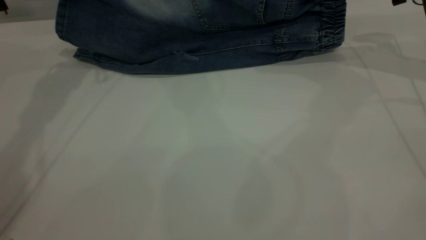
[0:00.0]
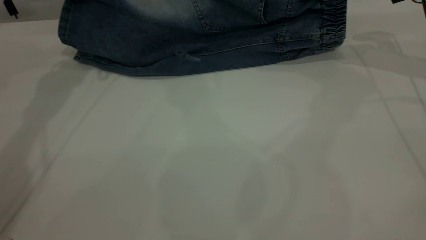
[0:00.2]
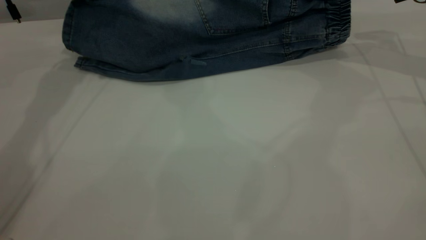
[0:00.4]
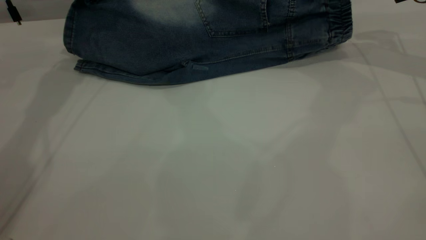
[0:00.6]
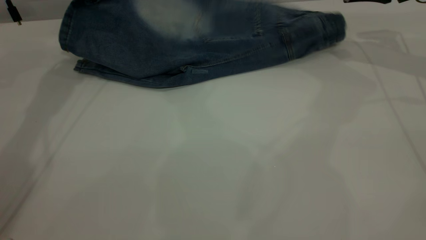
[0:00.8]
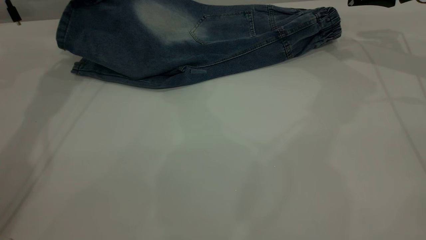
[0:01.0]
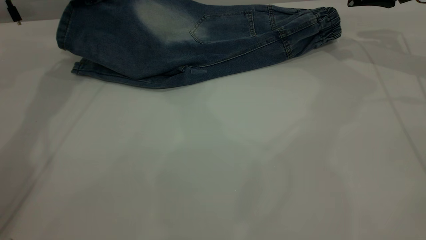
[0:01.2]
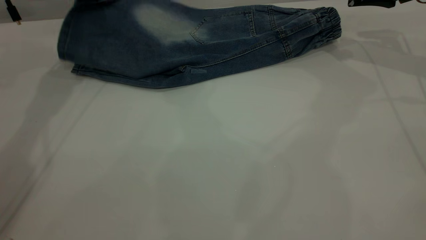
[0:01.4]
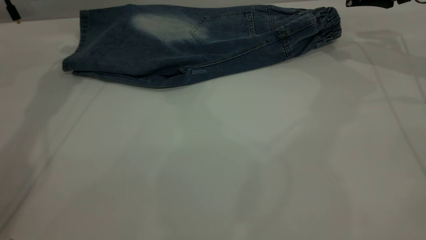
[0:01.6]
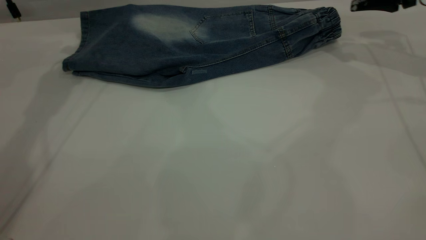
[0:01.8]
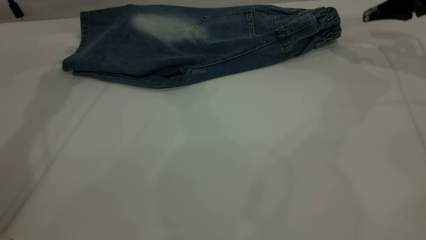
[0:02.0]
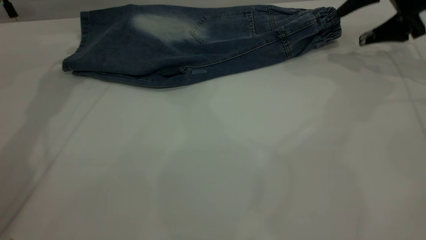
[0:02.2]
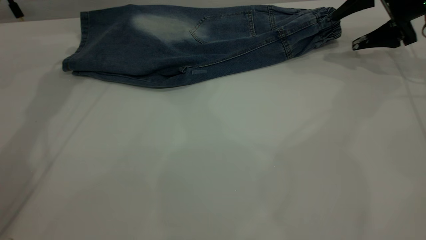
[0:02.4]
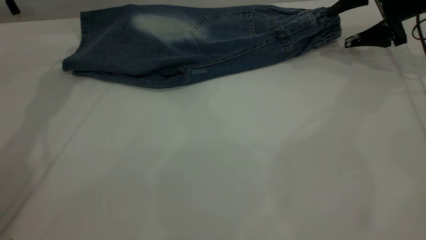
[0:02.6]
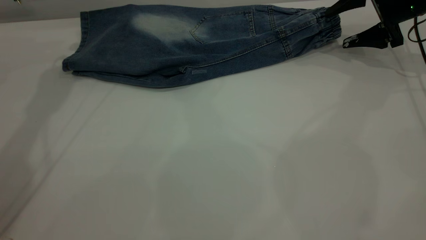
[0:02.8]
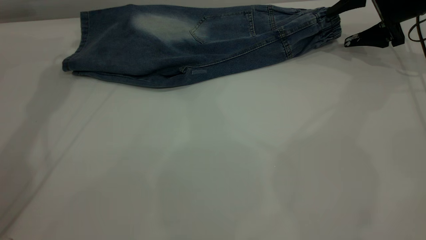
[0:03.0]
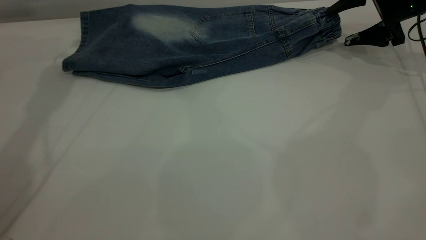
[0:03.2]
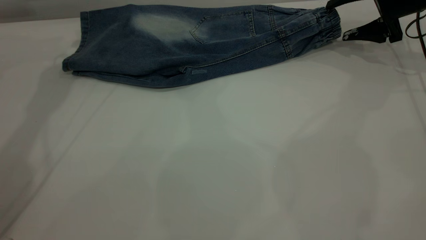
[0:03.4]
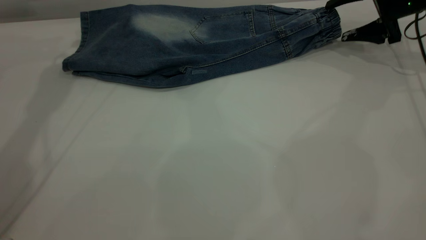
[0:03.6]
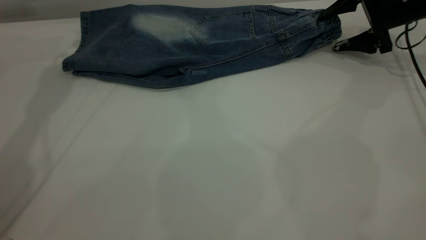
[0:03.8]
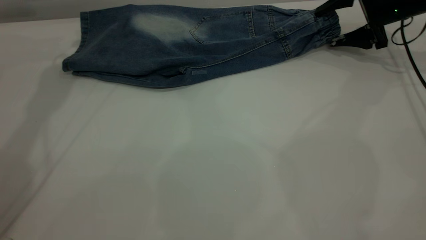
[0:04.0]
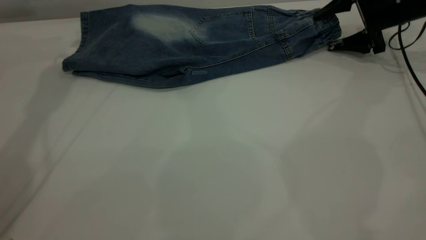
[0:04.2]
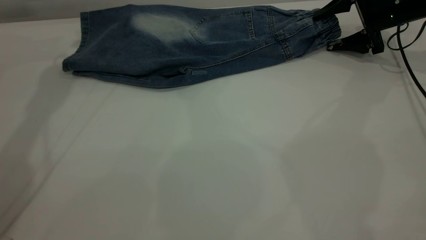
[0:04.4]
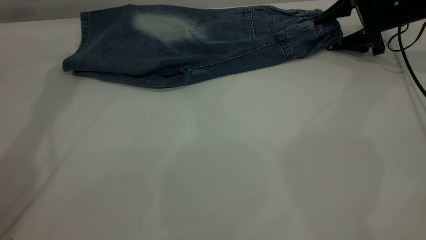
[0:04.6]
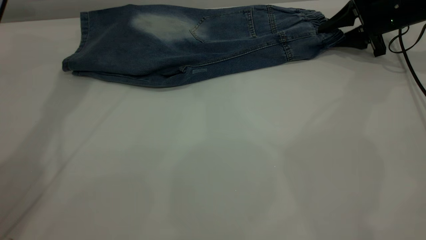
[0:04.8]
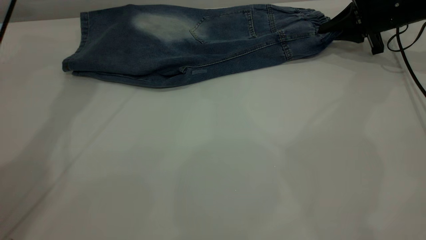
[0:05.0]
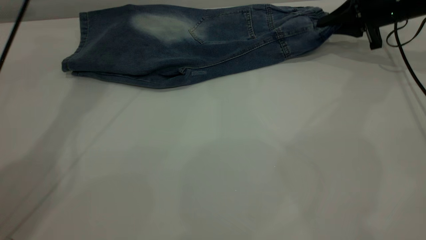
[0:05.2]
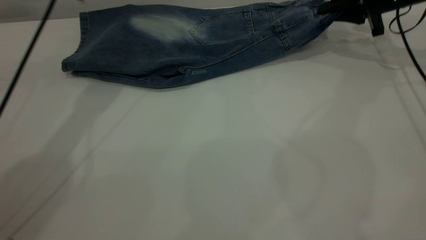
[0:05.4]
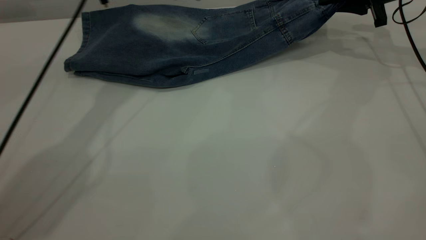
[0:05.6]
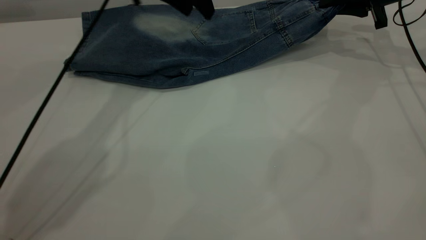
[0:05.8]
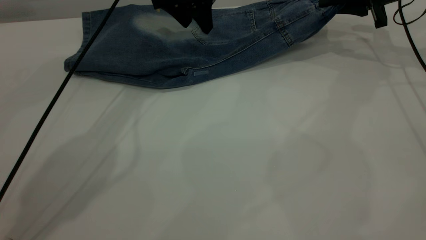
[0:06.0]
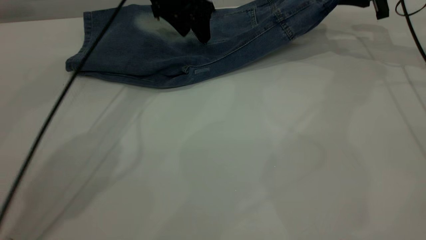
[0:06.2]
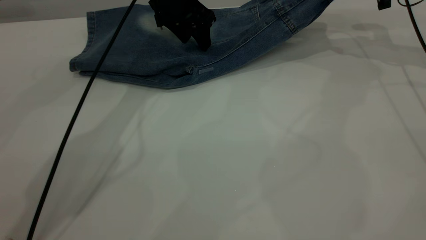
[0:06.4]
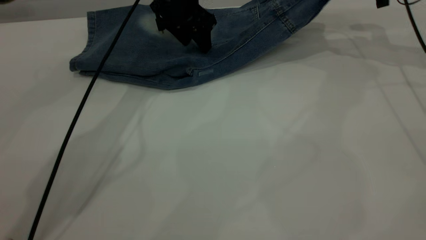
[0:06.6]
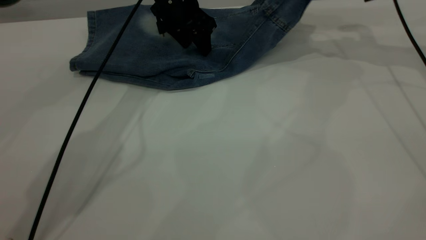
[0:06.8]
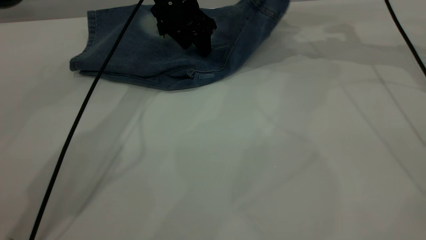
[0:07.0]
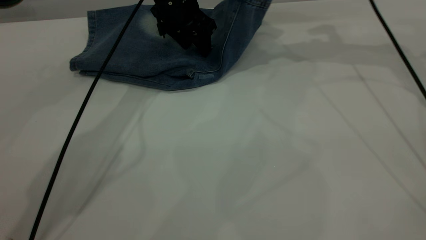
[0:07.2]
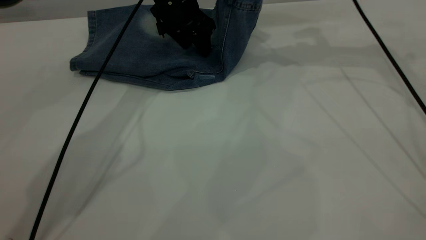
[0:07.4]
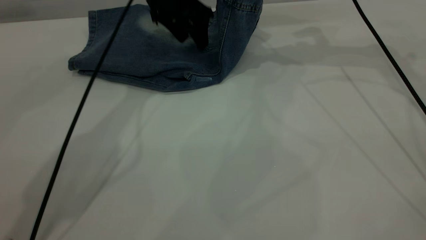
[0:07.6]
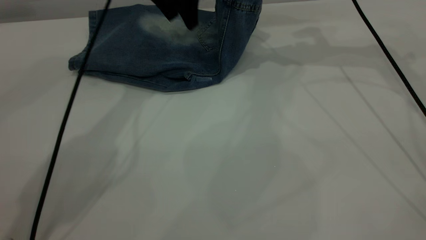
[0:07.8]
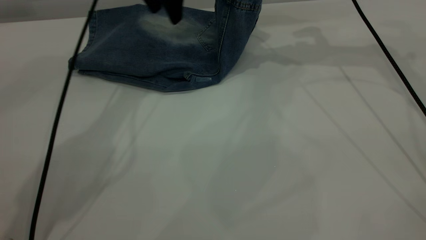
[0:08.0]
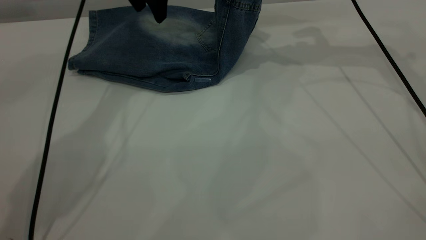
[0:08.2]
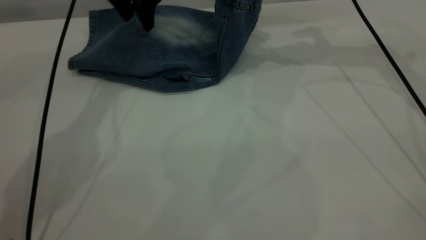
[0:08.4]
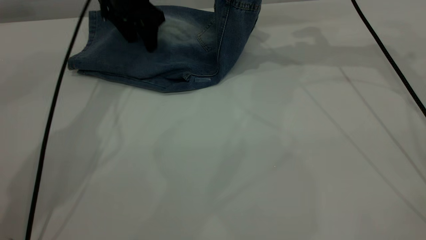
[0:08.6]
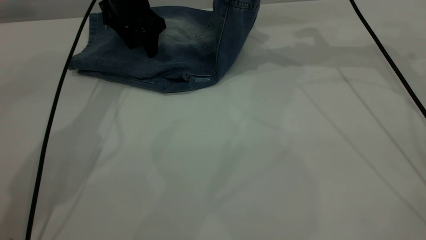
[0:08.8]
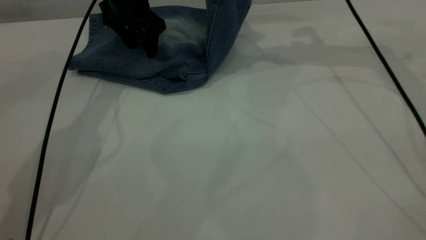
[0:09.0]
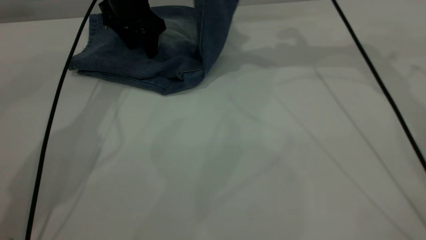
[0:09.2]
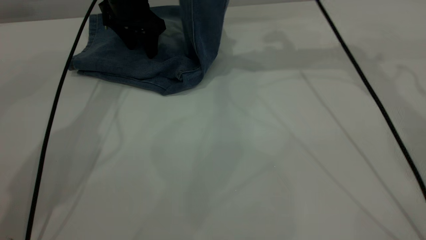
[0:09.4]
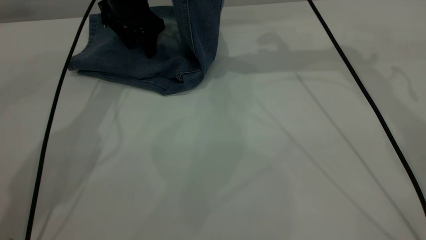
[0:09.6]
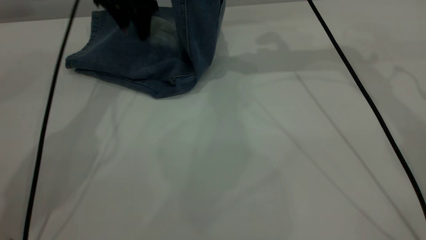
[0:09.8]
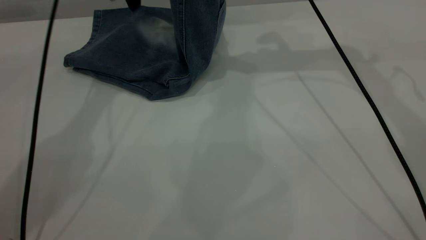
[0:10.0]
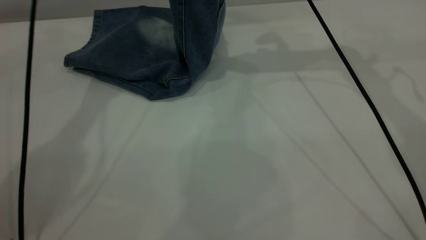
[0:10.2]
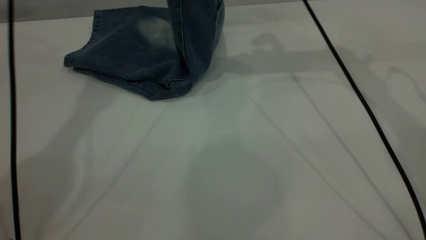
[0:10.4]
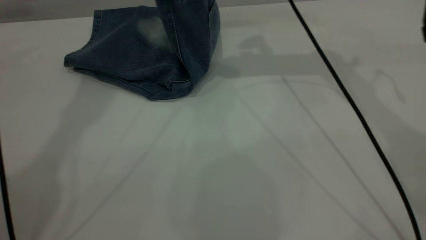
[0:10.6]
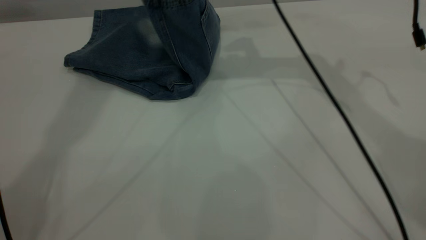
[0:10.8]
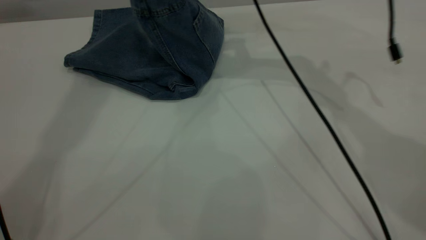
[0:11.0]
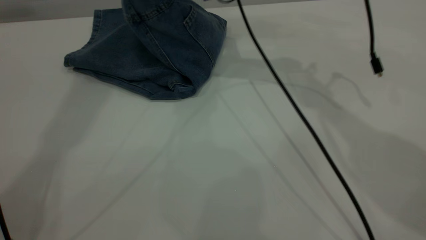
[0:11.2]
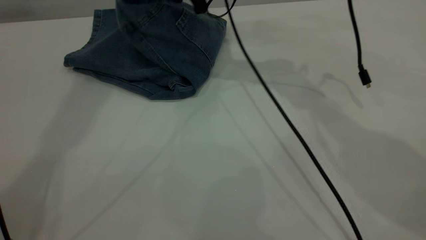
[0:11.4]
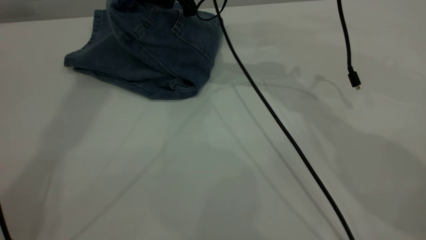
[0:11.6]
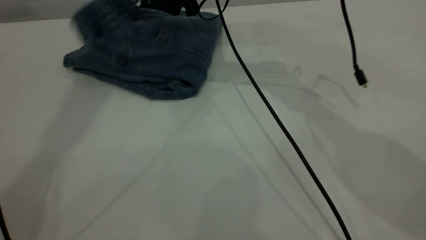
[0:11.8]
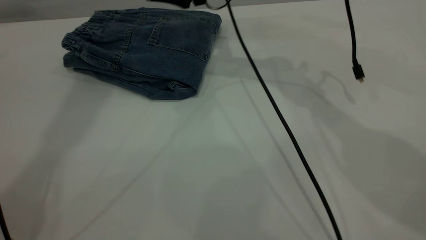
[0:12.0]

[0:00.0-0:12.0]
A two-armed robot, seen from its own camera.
Step, 0:00.0 to 0:02.2: Fold the bottom of the pants upward.
0:00.0 to 0:01.6: The right gripper opens its fingers. Meanwhile the left gripper opens.
0:01.6 to 0:03.0: The right gripper goes about 5 cm downward.
0:03.0 to 0:04.4: The grippers move only a little.
0:04.4 to 0:06.0: The left gripper shifts roughly 20 cm to the right and downward. Meanwhile the right gripper moves upward, some 5 cm, and closes up.
0:06.0 to 0:07.6: The right gripper moves to the left and upward, about 15 cm.
0:07.6 to 0:09.0: The left gripper travels to the left by roughly 10 cm.
0:09.0 to 0:10.4: The right gripper shifts roughly 5 cm to the left; the left gripper shifts about 25 cm upward.
0:10.4 to 0:12.0: The left gripper moves upward and backward, roughly 10 cm, while the right gripper goes approximately 10 cm to the left and downward, and opens up.

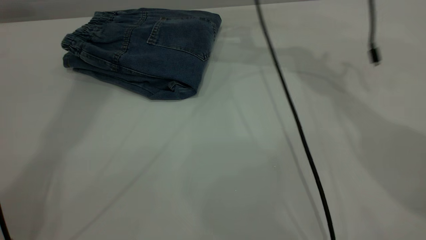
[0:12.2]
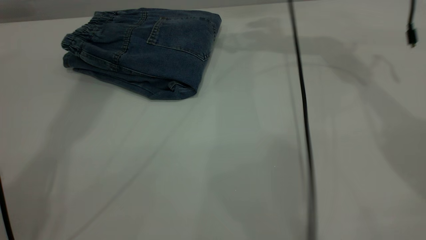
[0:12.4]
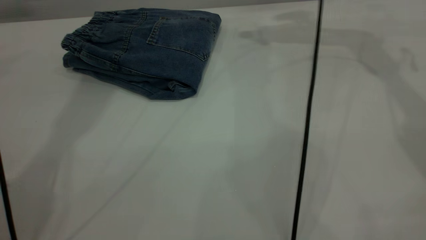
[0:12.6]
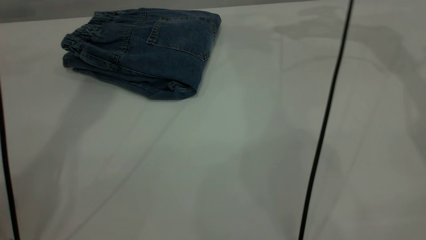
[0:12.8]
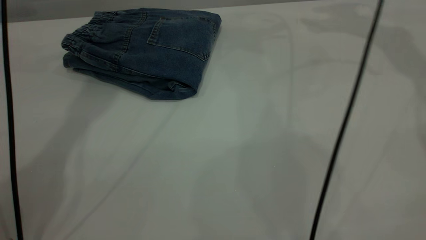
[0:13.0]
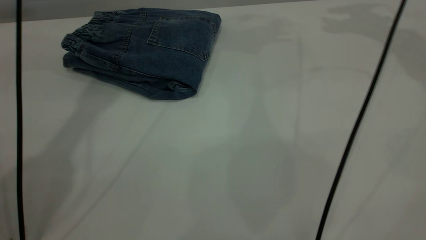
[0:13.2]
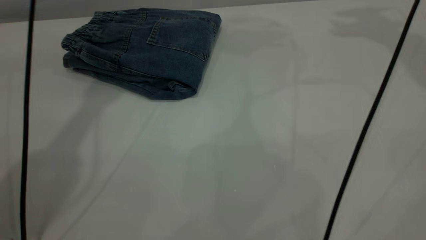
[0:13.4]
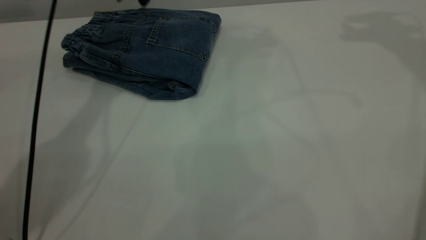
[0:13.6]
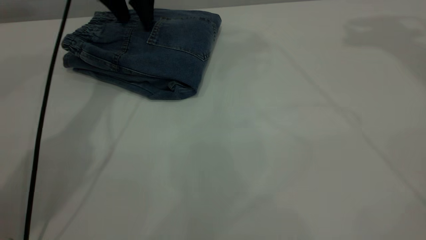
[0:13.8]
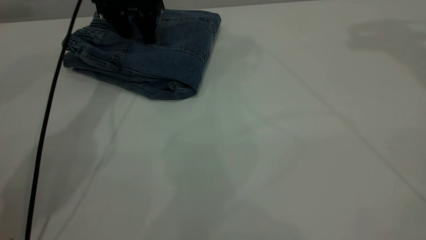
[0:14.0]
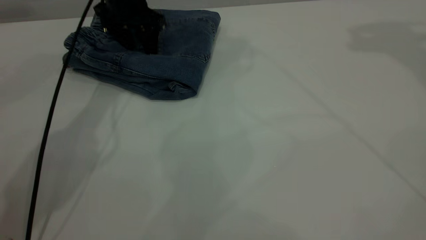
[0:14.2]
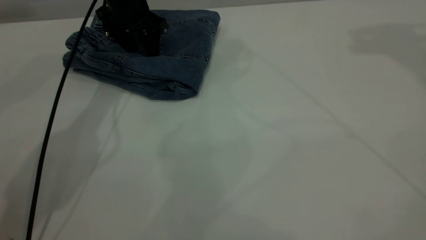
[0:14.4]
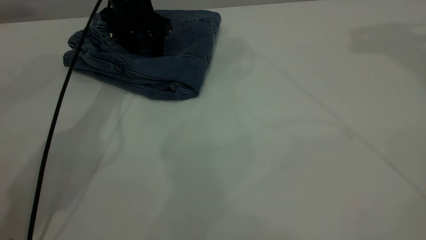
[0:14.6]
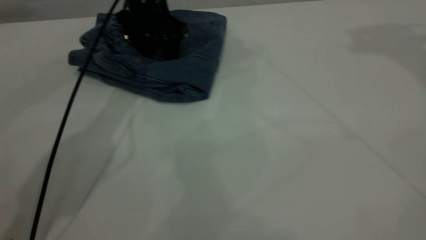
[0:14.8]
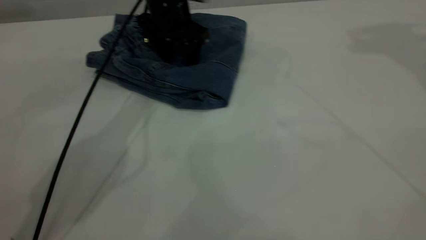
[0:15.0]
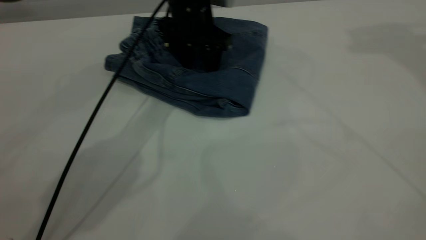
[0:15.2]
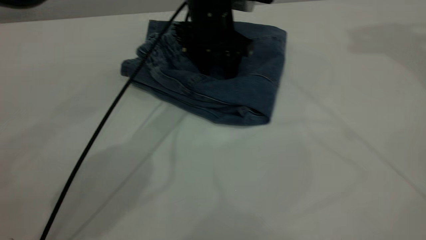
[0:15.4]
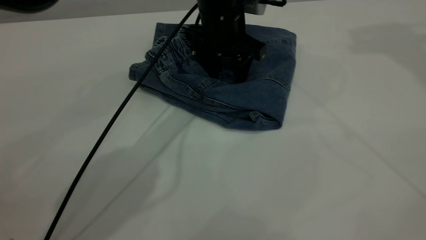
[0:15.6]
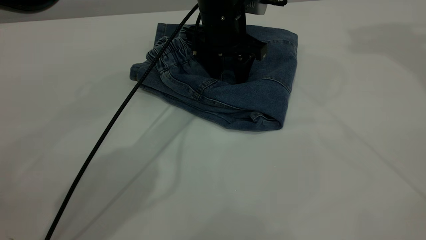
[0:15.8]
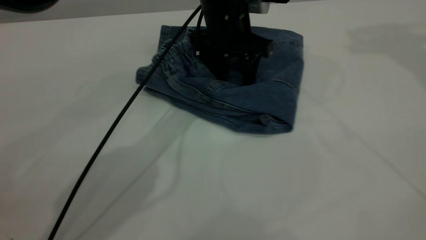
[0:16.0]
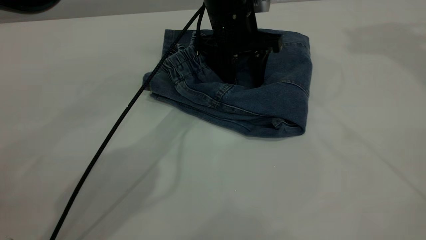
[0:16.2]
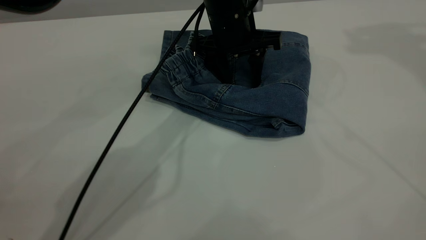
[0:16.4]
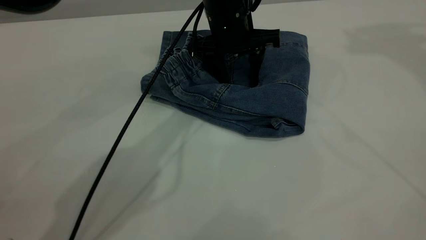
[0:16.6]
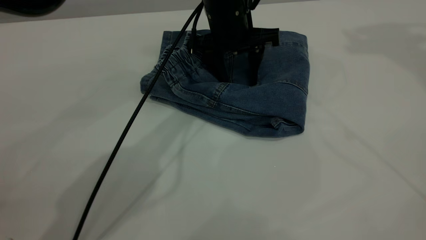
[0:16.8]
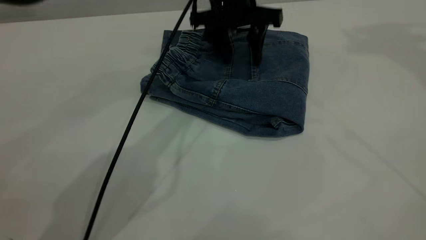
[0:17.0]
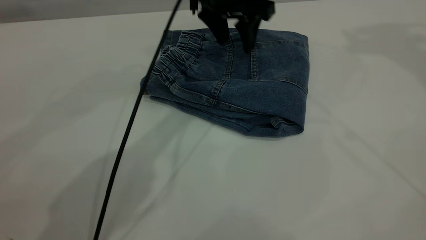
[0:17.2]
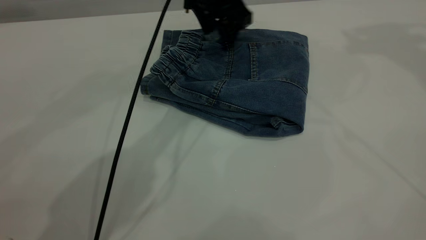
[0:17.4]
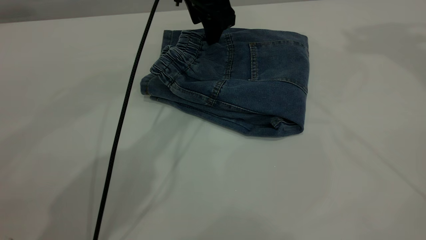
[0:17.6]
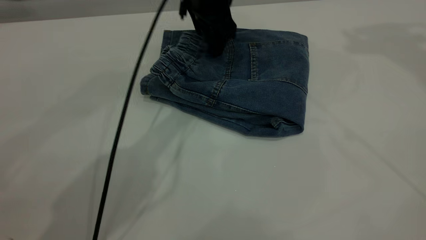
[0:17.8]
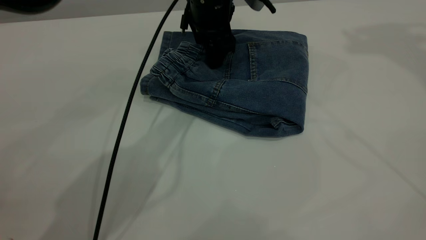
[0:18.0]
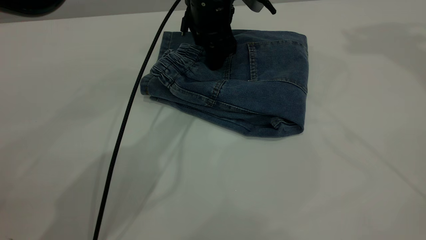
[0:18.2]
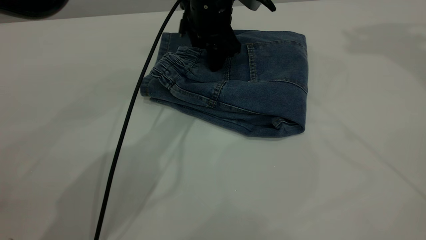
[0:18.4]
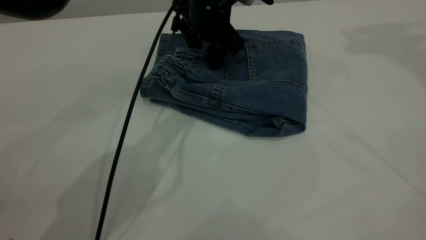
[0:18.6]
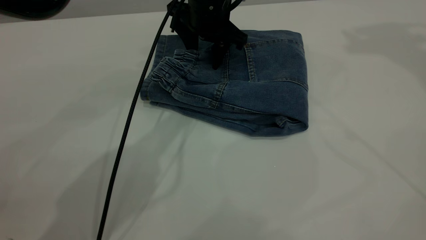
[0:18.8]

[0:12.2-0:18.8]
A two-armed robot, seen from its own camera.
0:12.2 to 0:13.8: The right gripper heads upward and to the right, covering approximately 35 cm; the left gripper shifts approximately 30 cm downward.
0:13.8 to 0:15.4: The left gripper moves to the right, backward and downward, about 20 cm.
0:15.4 to 0:17.2: The left gripper is displaced upward by about 5 cm.
0:17.2 to 0:18.8: The left gripper shifts by some 5 cm.
